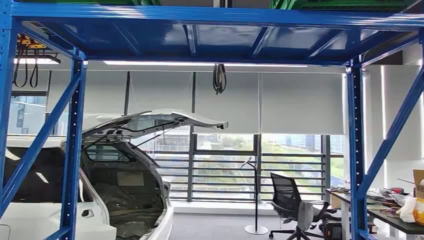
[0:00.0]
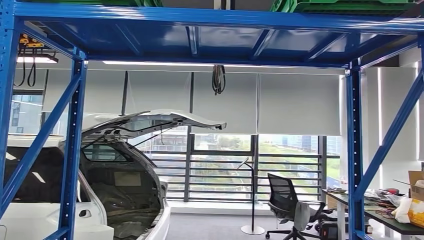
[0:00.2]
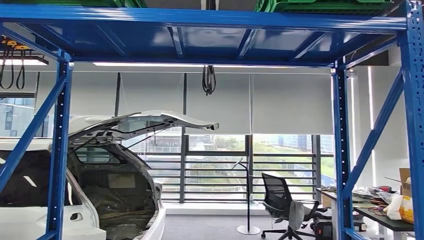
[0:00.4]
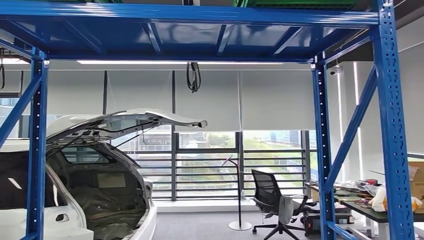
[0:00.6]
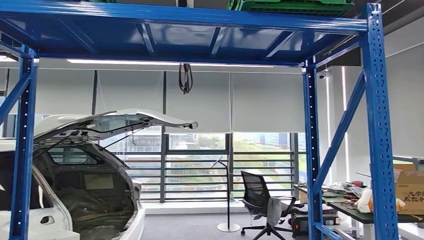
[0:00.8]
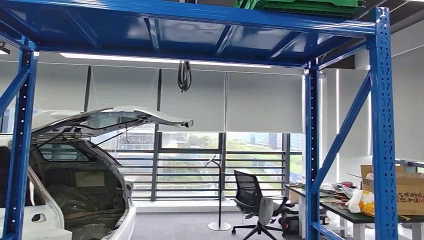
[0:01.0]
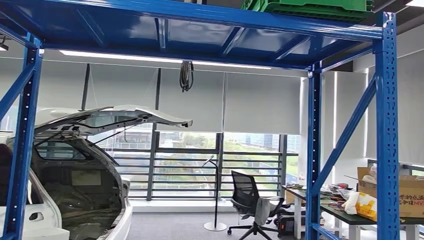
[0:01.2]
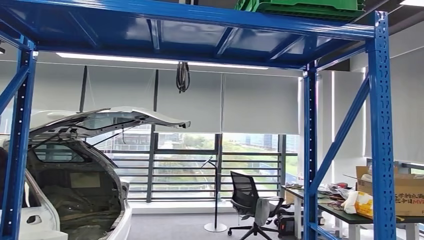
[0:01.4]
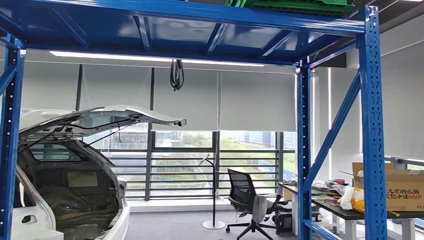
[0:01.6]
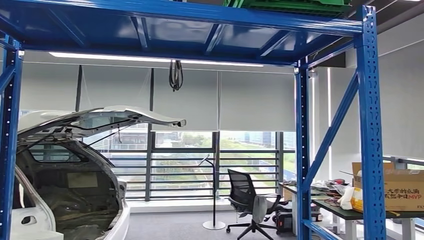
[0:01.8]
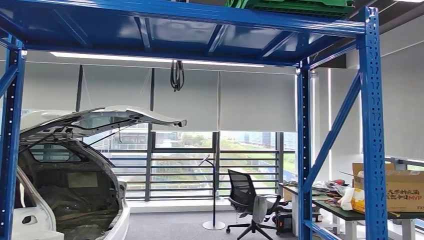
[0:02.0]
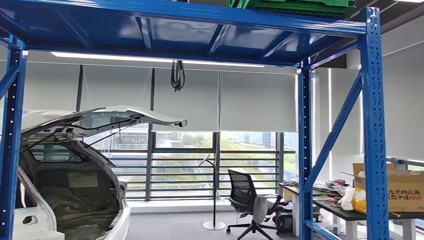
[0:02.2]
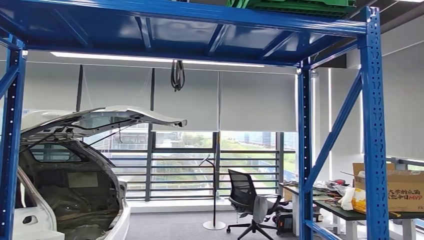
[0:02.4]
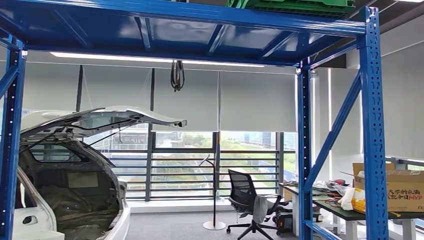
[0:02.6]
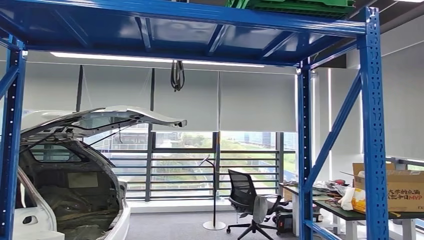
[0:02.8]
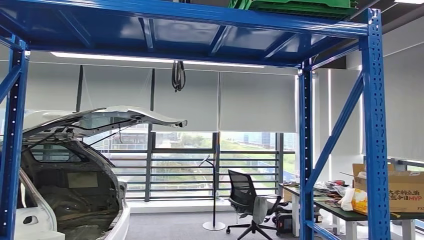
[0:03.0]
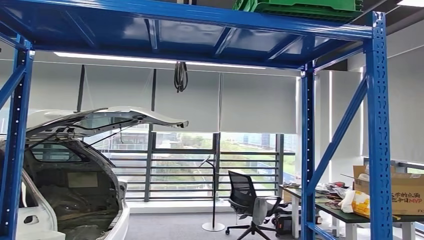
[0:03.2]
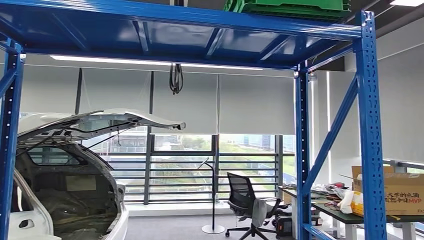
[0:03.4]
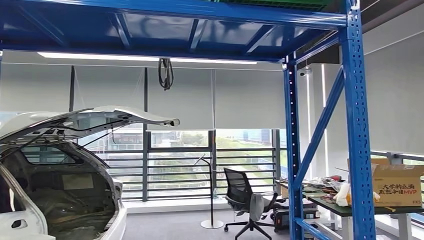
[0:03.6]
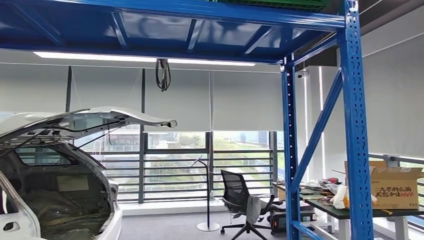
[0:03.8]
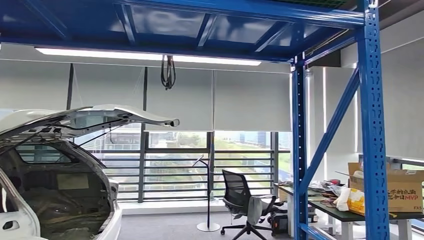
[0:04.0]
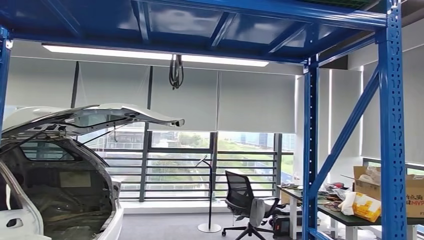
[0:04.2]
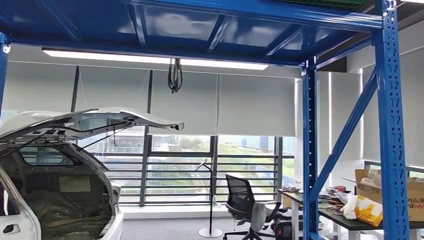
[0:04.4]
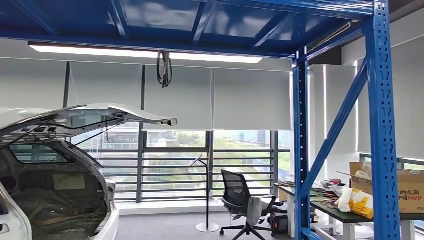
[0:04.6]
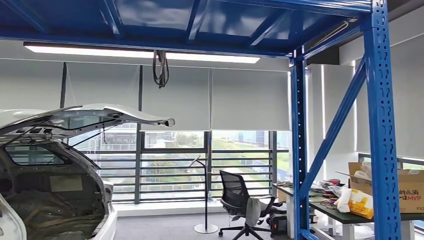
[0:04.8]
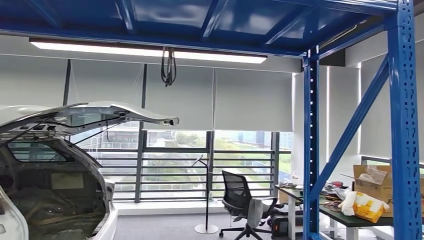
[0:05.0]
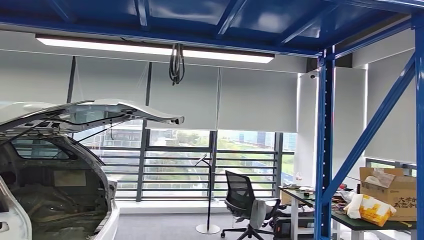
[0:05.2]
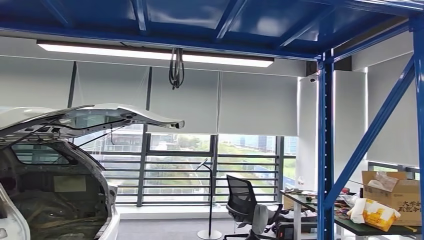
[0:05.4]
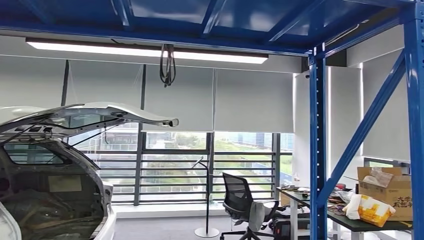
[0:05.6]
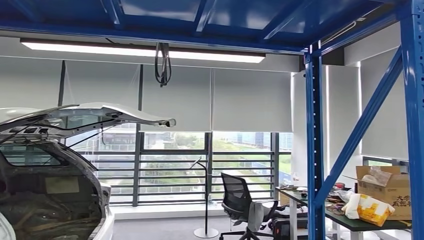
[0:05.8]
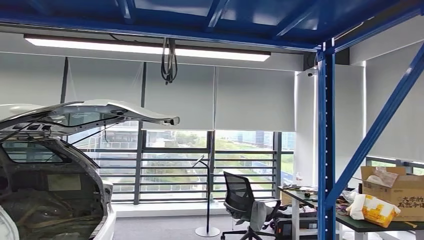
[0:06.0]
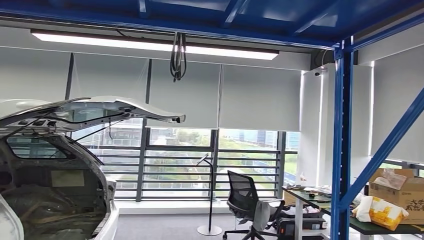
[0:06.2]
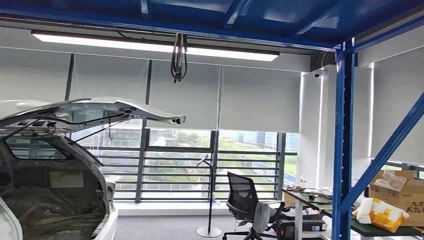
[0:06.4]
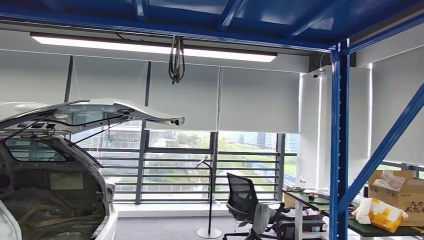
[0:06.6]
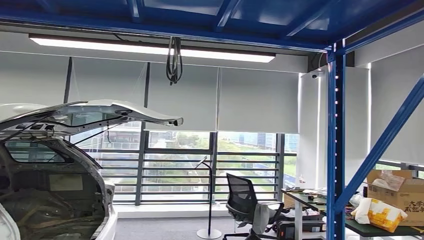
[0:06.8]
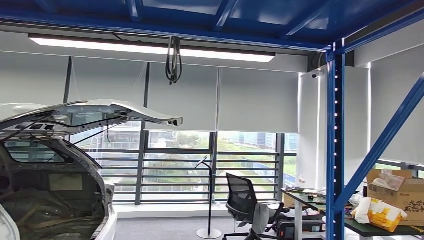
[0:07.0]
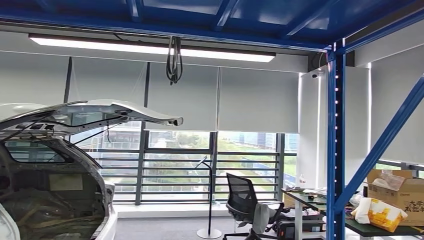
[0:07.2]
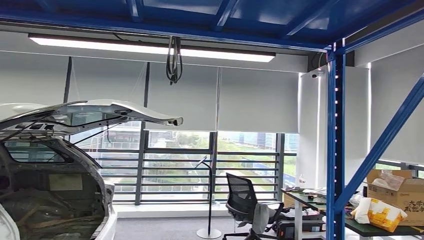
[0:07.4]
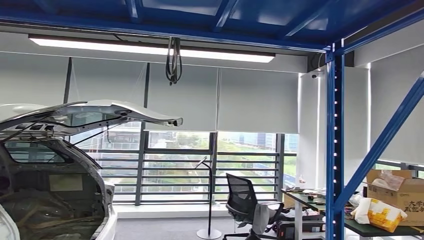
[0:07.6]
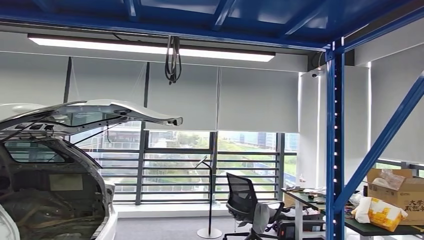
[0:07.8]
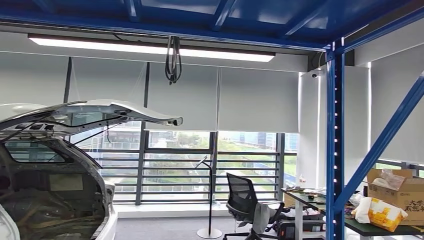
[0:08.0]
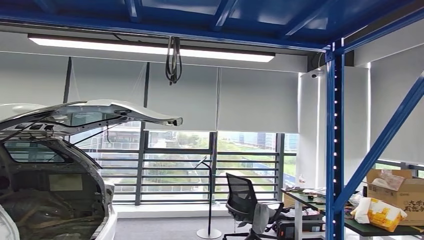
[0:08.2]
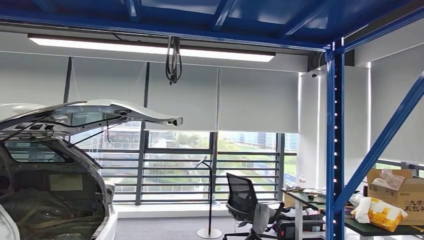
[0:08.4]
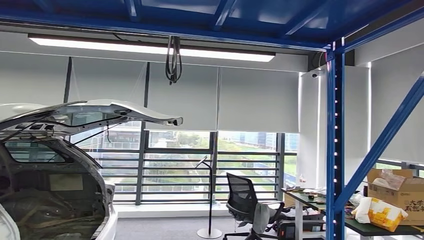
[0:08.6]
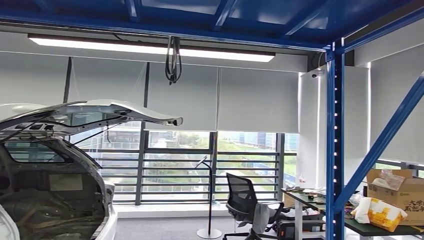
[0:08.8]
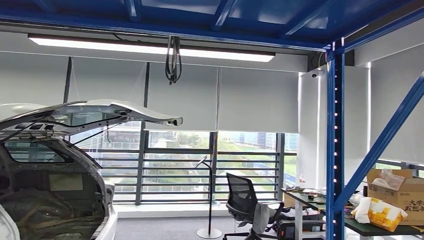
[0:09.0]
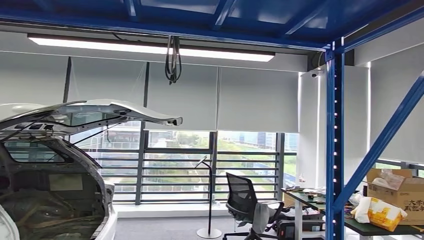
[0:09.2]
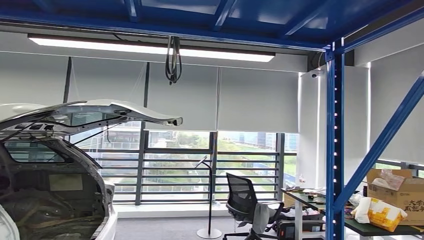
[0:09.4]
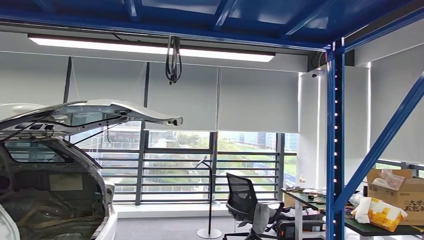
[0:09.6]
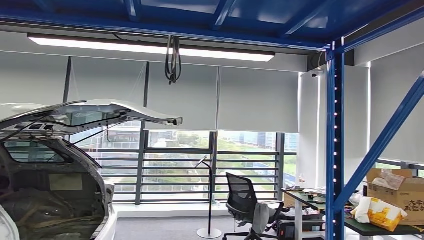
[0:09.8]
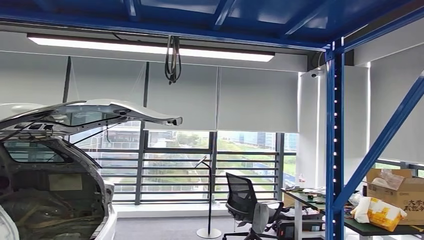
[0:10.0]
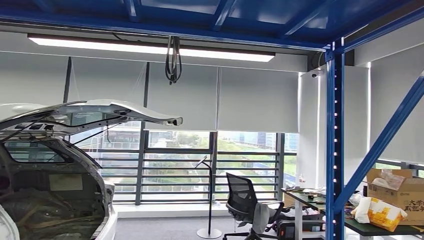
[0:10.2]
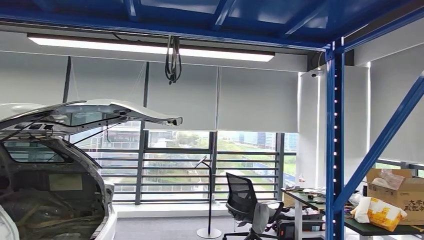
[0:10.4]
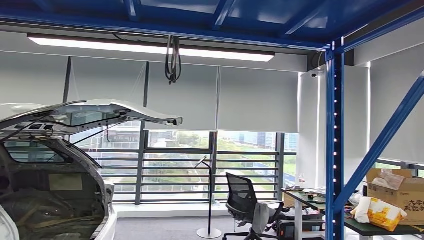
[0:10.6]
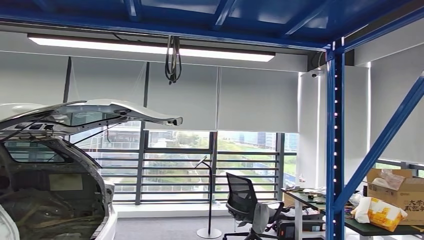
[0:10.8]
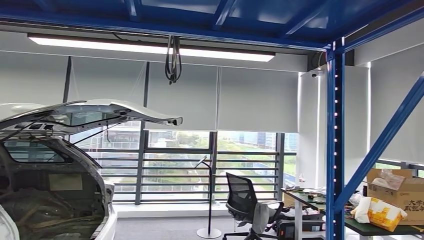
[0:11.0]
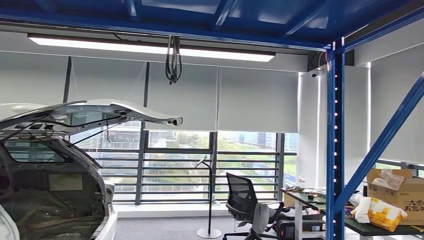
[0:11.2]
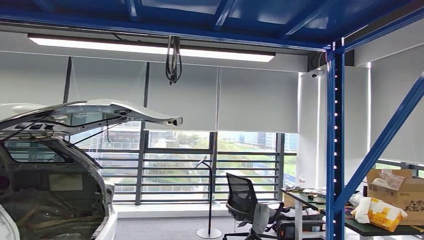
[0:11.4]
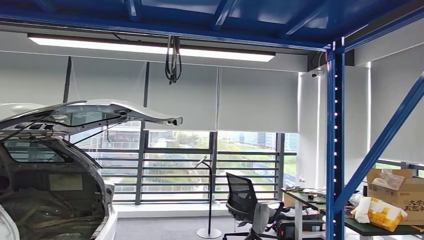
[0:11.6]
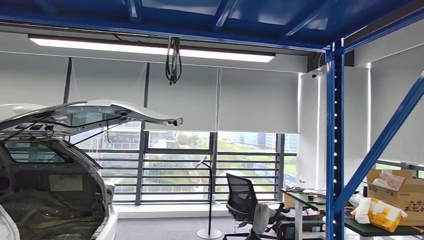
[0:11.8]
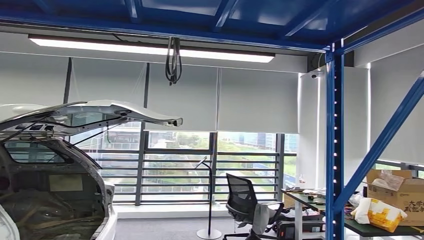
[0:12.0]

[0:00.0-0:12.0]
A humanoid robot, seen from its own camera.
0:07.6 to 0:09.0: The right hand shifts roughly 20 cm to the left and forward.
0:10.4 to 0:12.0: The right hand goes roughly 5 cm to the left.

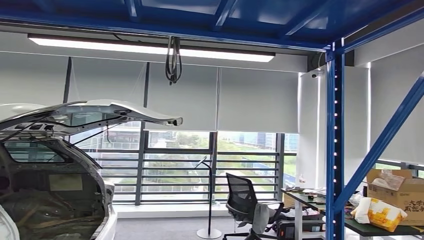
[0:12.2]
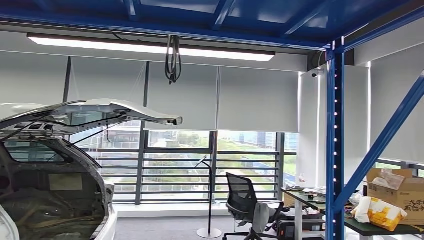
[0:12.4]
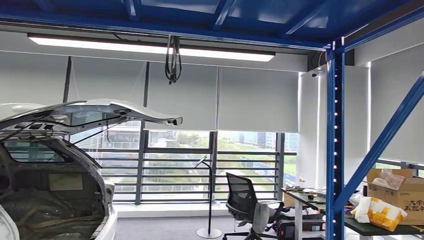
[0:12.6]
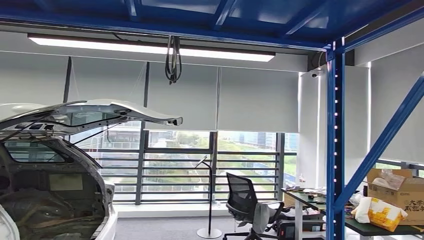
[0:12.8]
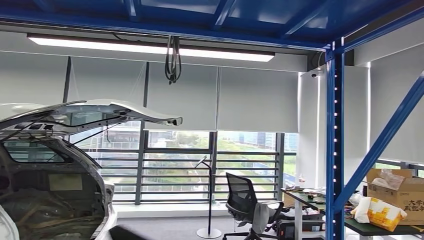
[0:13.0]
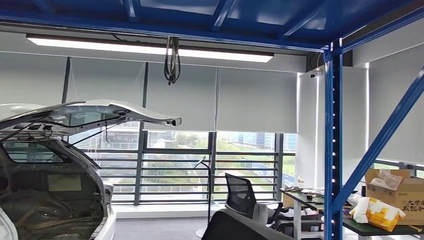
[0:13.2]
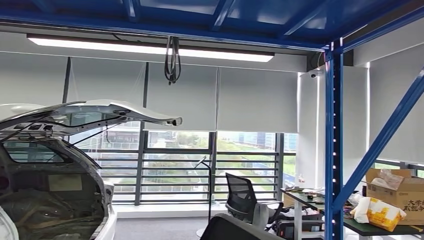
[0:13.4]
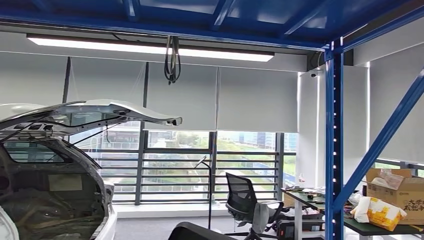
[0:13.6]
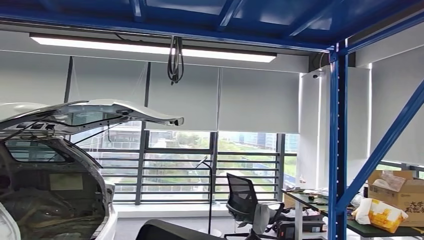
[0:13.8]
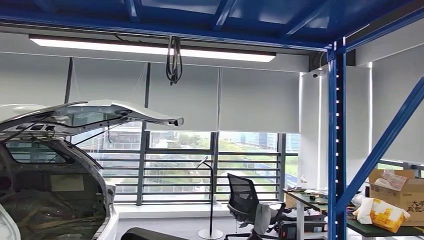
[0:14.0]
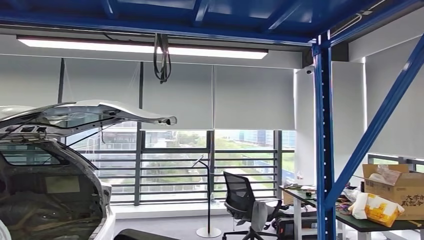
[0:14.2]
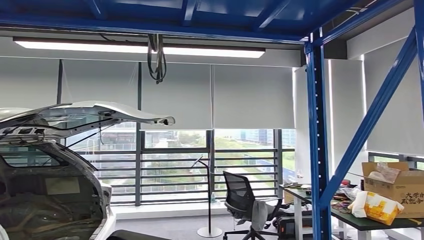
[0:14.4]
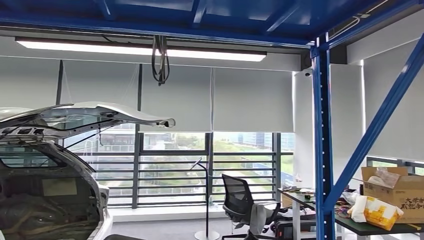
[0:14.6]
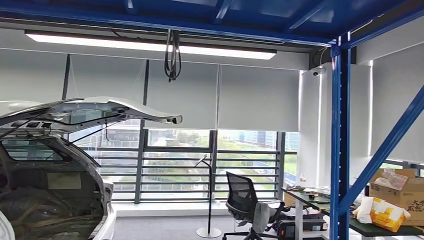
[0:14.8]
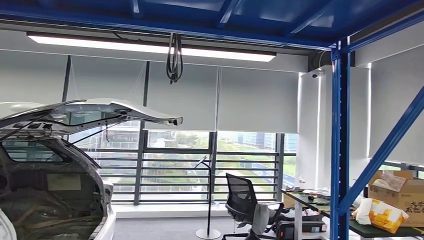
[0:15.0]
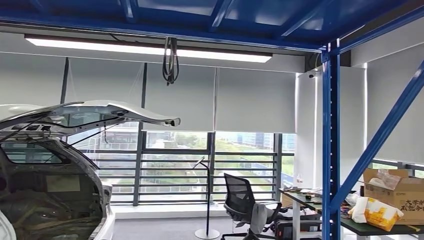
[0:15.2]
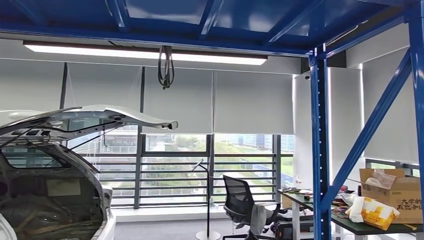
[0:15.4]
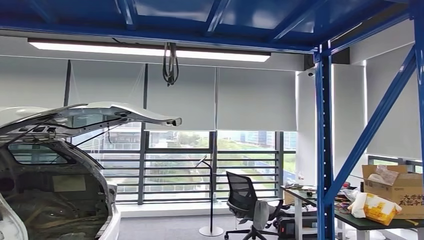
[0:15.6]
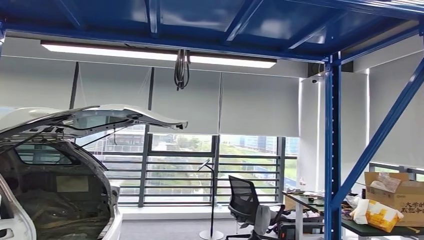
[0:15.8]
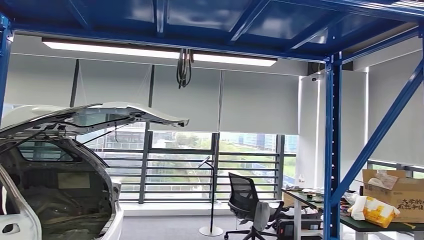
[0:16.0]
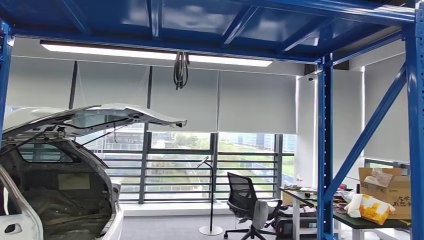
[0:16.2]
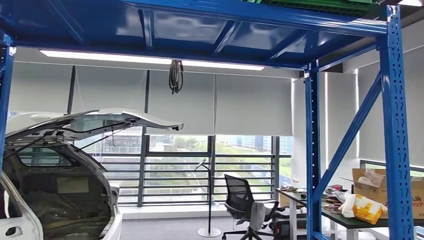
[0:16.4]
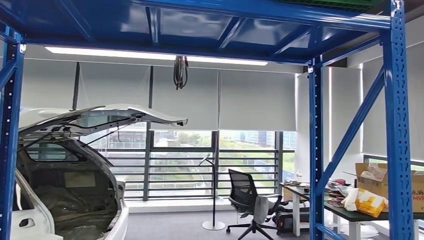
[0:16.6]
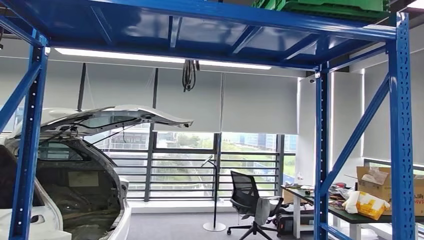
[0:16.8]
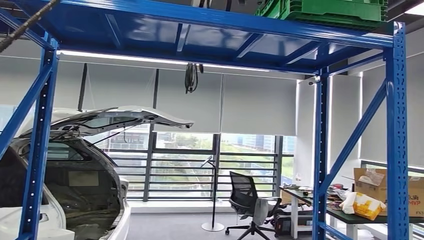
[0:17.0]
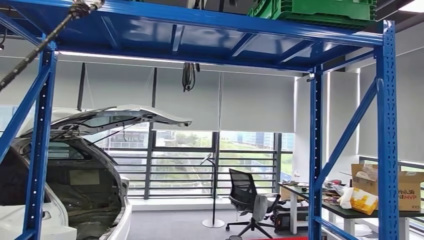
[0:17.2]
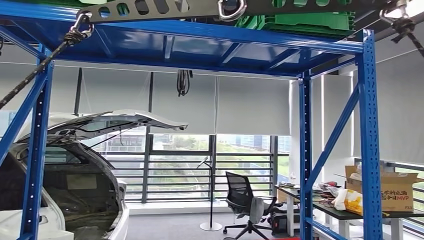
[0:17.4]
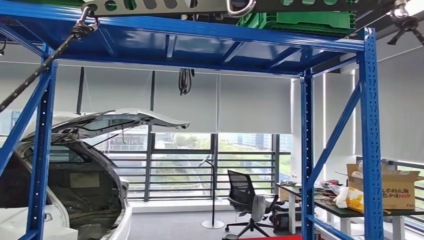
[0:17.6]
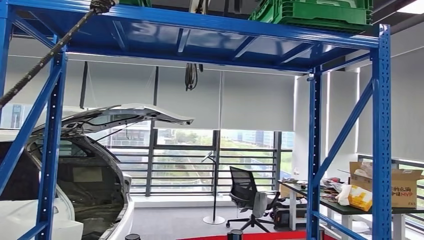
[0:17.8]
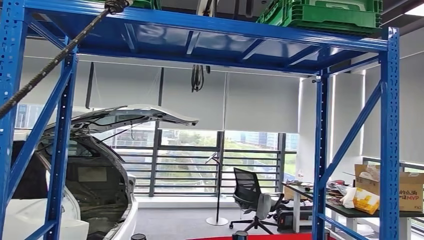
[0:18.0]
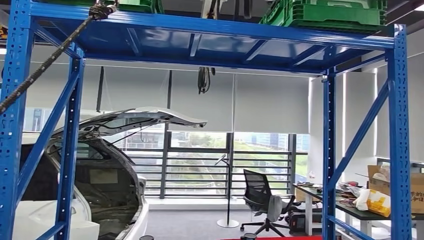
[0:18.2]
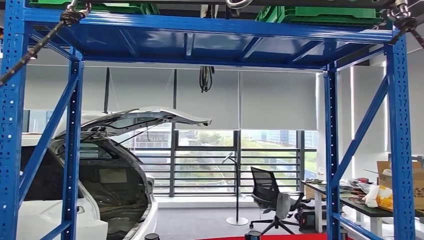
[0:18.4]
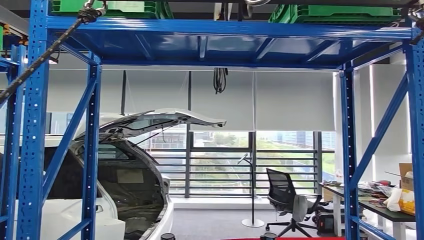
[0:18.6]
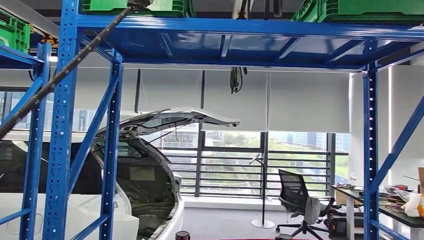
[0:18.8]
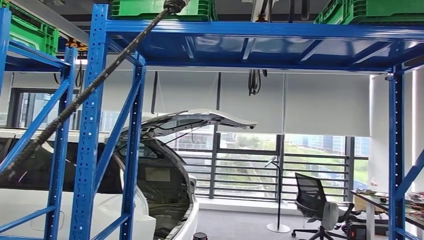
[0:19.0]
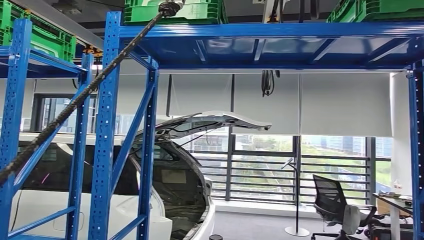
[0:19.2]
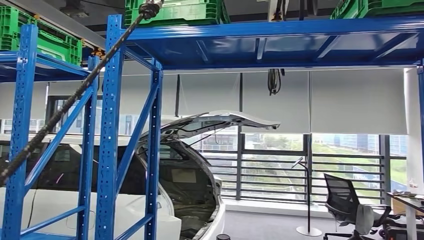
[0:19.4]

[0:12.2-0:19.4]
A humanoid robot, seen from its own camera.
0:12.2 to 0:13.6: The right hand heads backward, covering roughly 15 cm.
